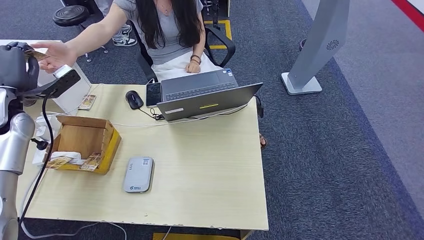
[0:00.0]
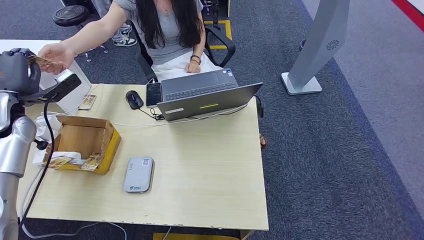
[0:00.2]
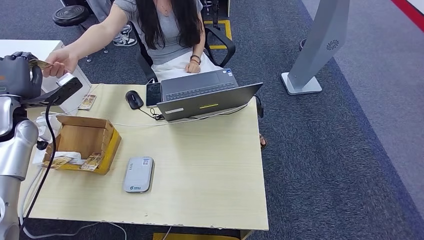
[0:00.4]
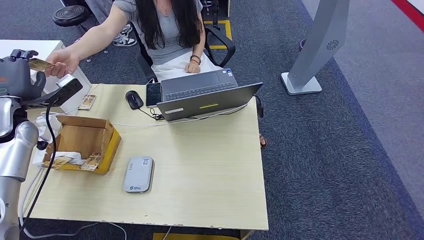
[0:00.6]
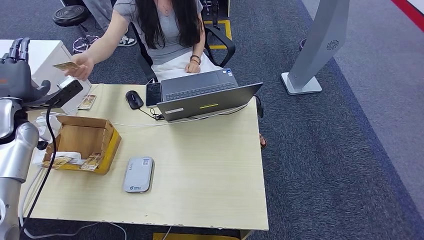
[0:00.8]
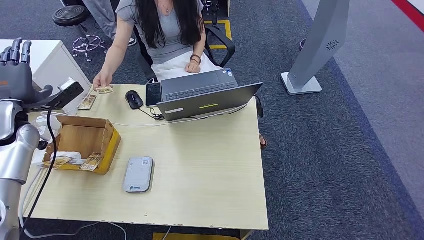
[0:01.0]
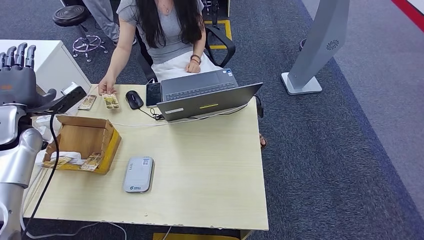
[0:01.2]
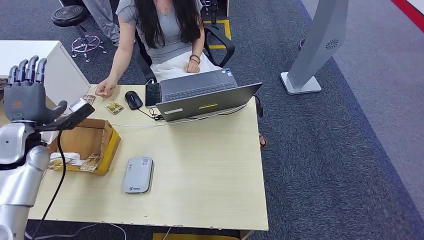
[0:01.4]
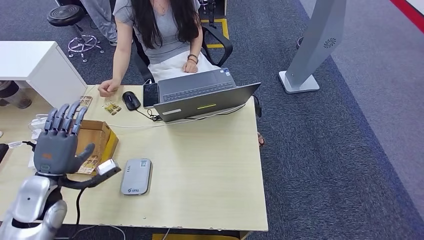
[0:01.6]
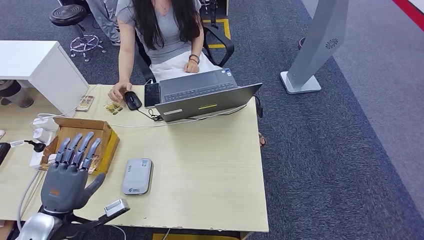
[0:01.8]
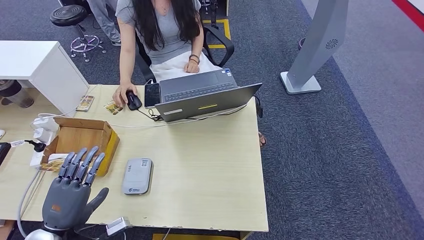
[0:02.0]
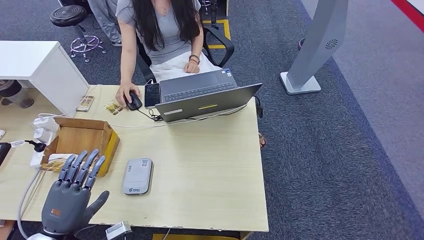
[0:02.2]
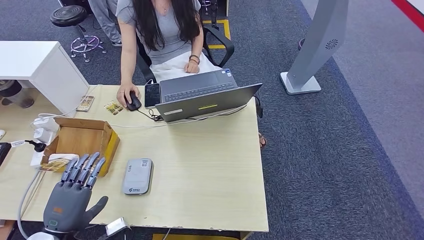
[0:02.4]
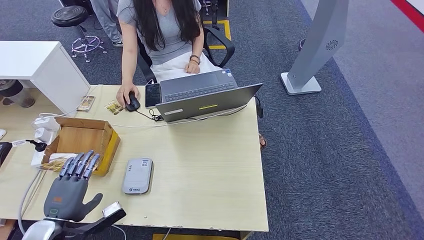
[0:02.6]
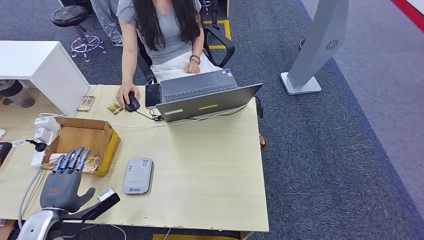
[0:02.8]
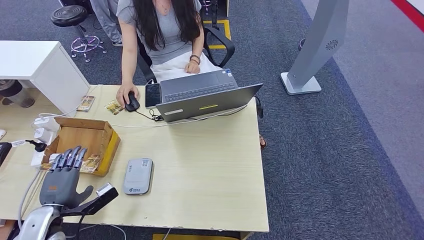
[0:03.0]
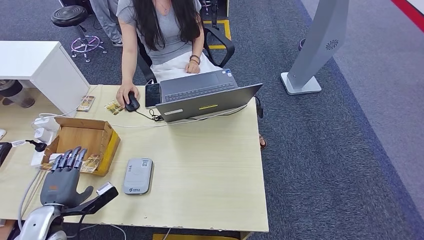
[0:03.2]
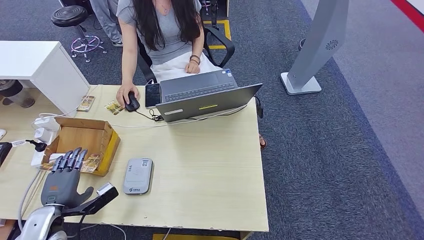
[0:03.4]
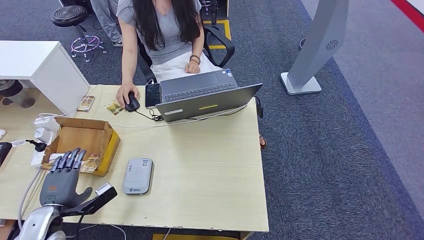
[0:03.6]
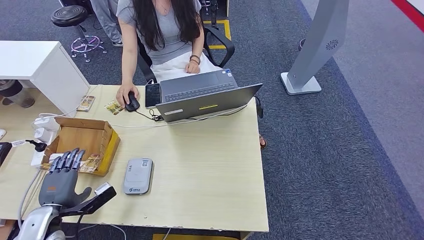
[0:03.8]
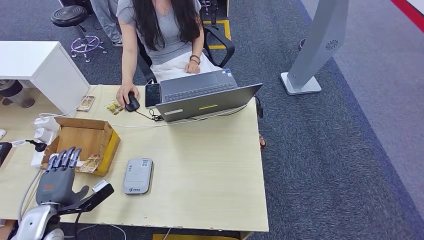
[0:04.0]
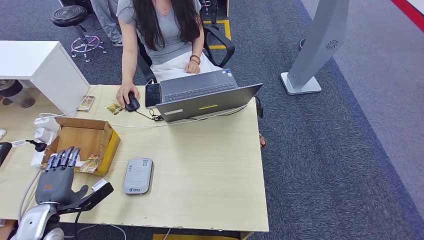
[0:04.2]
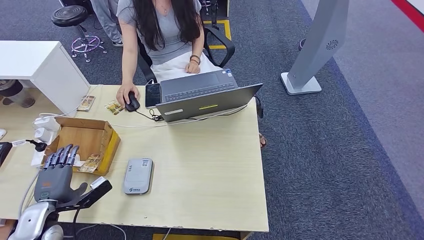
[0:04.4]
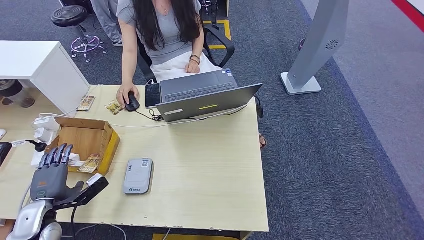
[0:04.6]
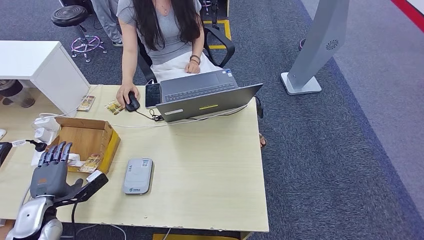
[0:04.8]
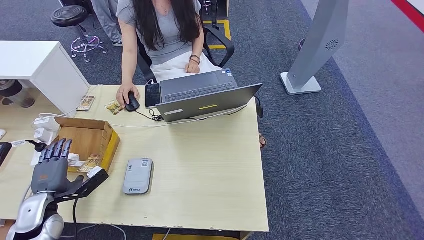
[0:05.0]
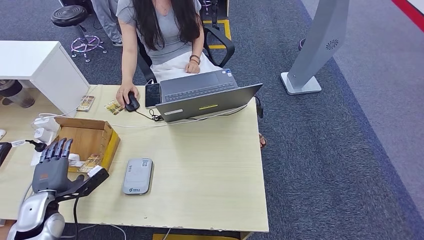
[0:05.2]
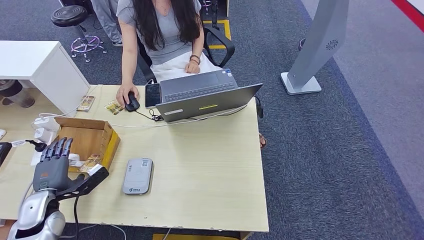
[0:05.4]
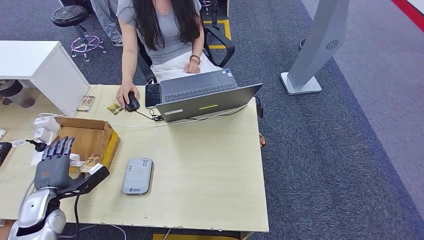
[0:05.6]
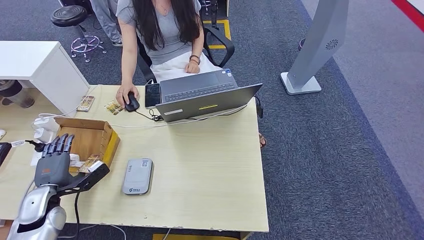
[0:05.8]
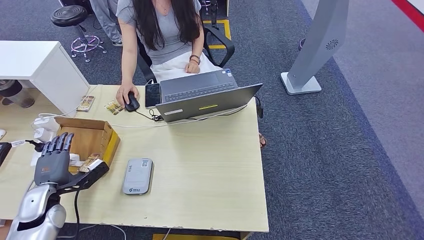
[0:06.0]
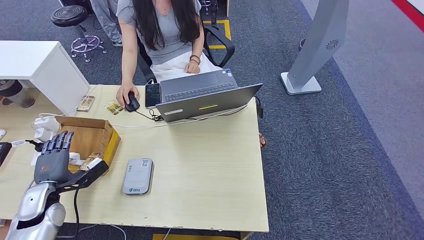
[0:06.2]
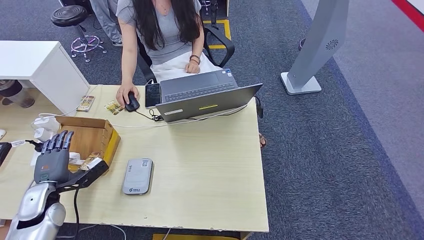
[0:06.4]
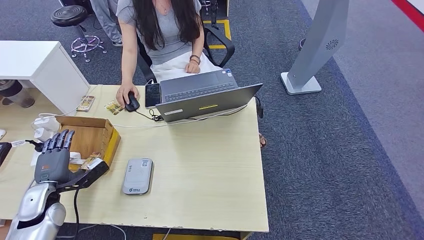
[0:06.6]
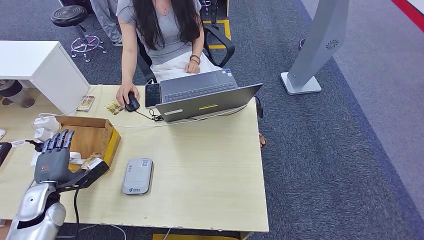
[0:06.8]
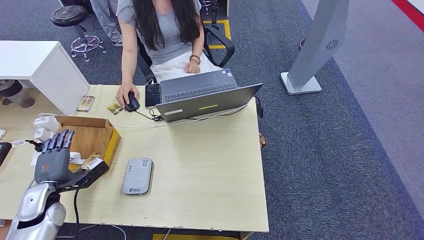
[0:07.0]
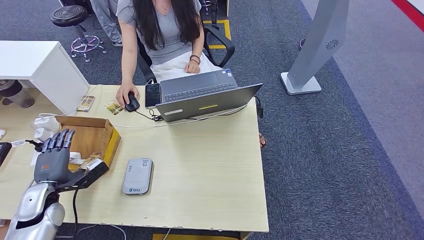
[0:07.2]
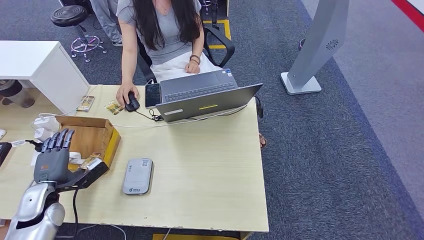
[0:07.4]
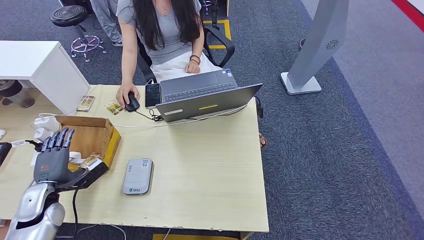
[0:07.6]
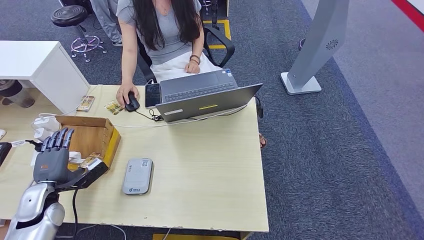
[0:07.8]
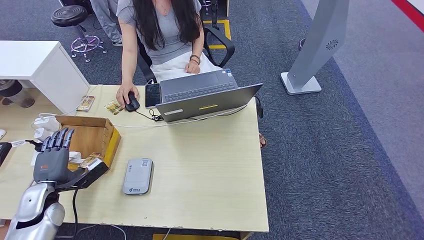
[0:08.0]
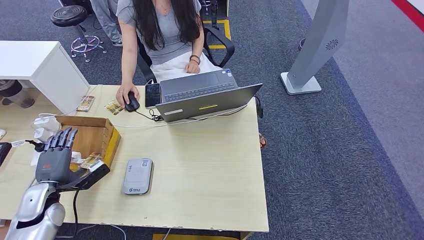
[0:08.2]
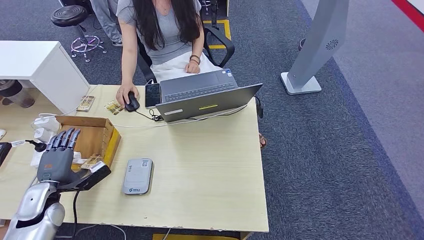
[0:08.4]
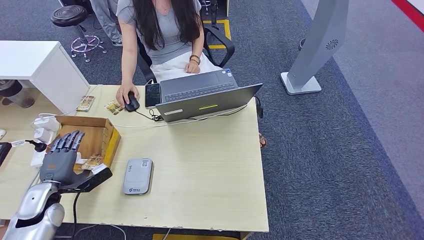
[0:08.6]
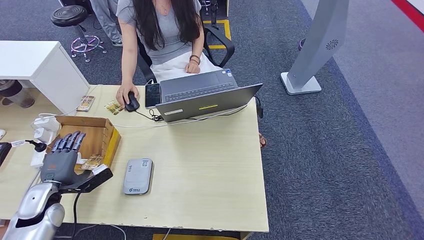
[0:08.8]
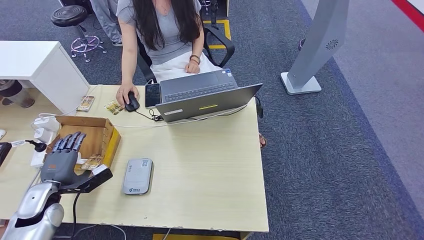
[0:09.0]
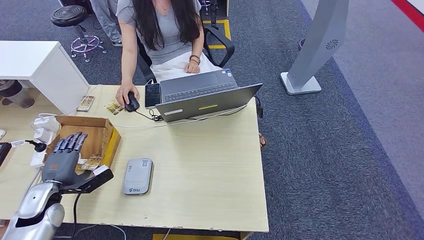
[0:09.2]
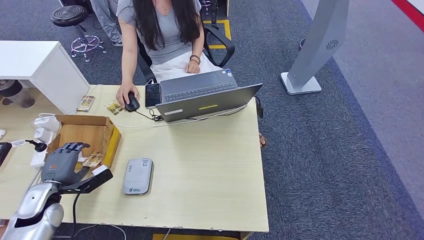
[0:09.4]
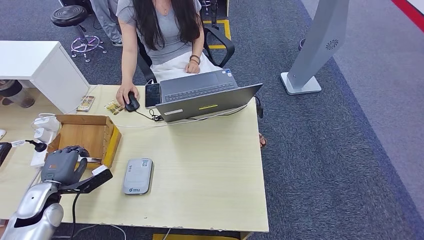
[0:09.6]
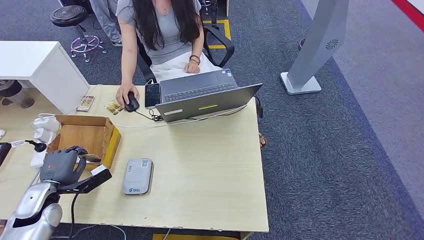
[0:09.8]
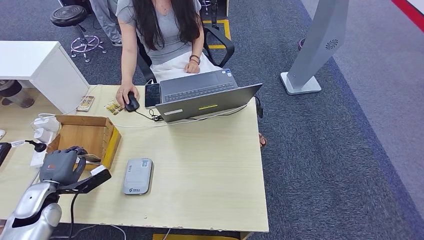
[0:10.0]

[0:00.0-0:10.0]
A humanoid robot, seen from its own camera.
0.0 to 1.4 s: The left hand heads downward, covering some 5 cm.
1.4 to 2.8 s: The left hand travels backward and downward by some 20 cm.
2.8 to 4.2 s: The hands stay close to where they were, moving slightly.
4.2 to 5.8 s: The left hand changes place by approximately 5 cm.
5.8 to 7.2 s: Both hands stay put.
7.2 to 8.6 s: The hands move only a little.
8.6 to 10.0 s: Both hands stay about where they are.

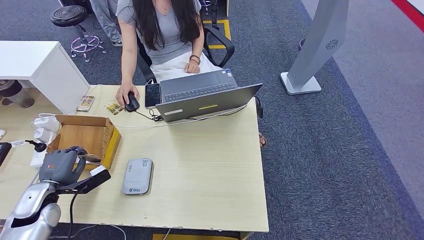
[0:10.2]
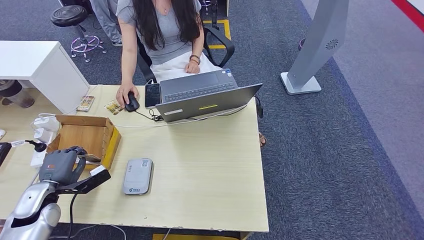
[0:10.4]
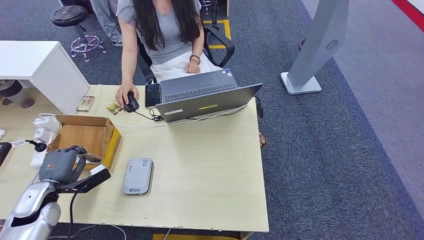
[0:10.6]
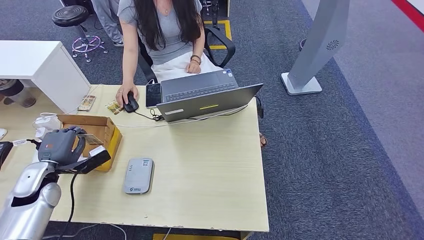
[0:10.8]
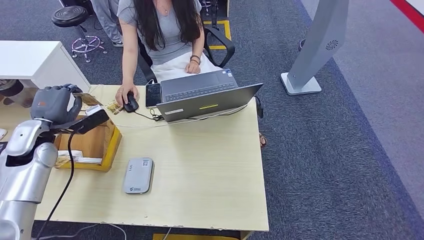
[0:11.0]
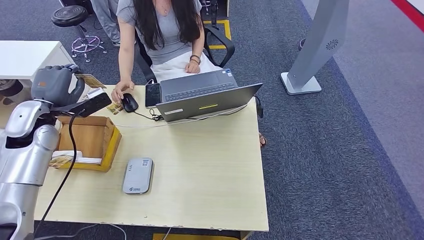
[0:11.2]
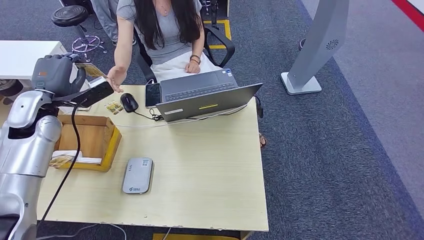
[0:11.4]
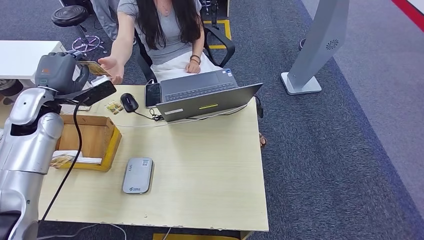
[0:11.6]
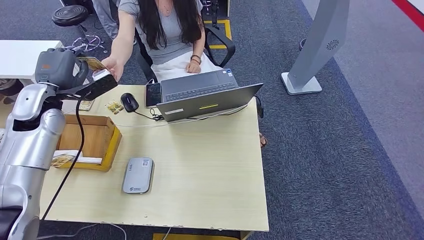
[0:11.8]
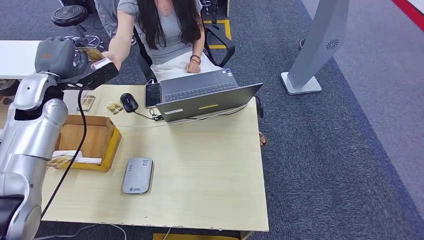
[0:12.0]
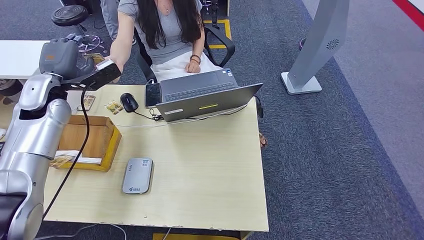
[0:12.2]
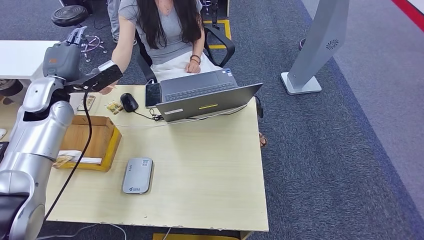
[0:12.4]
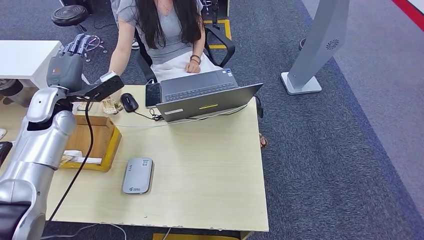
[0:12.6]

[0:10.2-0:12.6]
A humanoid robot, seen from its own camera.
Step, 11.4 to 12.6 s: Hand the room key to the person.
10.2 to 11.4 s: The left hand is displaced upward and forward by about 25 cm.
11.4 to 12.6 s: There are only small adjustments of the hands.

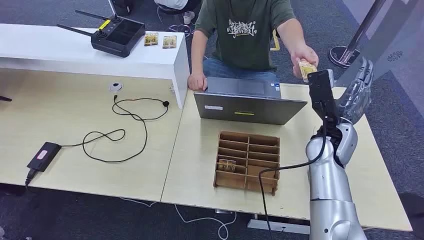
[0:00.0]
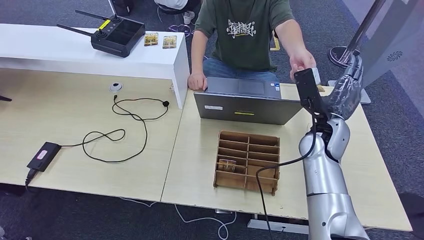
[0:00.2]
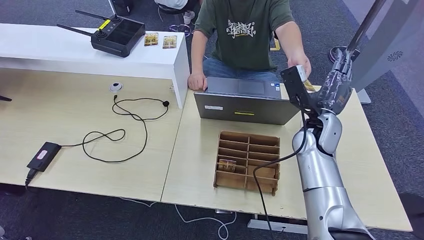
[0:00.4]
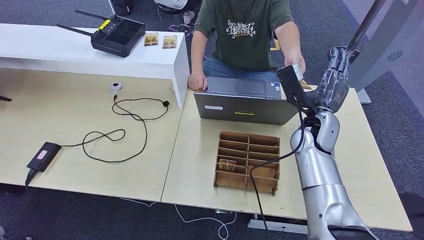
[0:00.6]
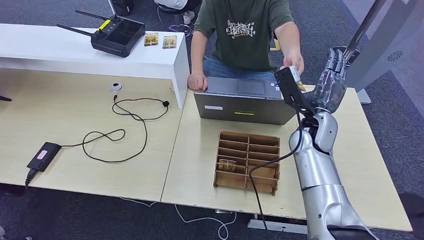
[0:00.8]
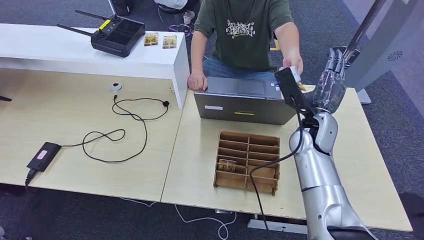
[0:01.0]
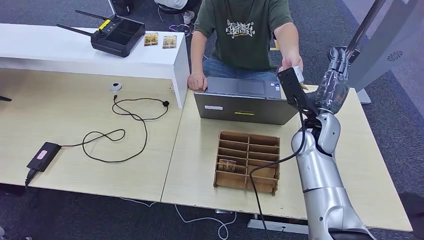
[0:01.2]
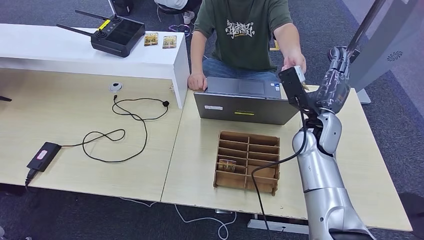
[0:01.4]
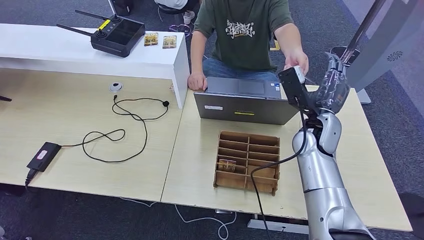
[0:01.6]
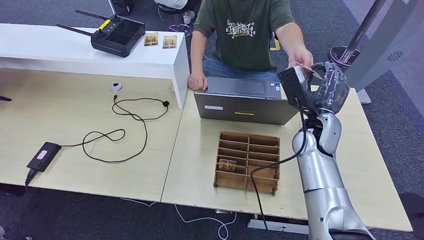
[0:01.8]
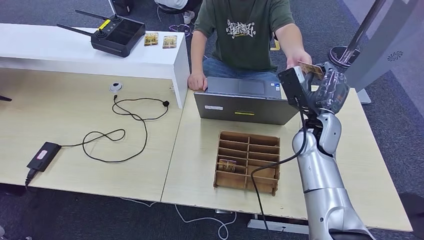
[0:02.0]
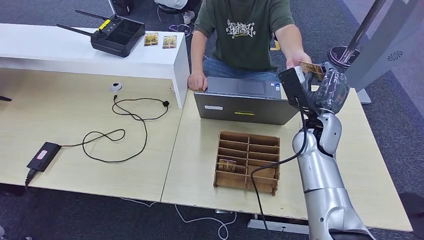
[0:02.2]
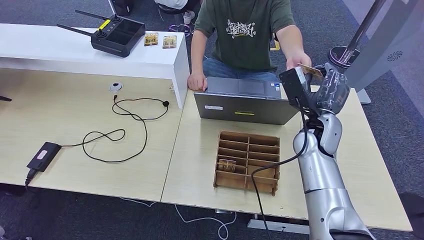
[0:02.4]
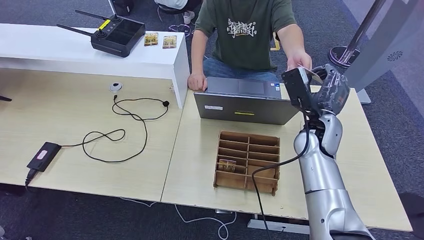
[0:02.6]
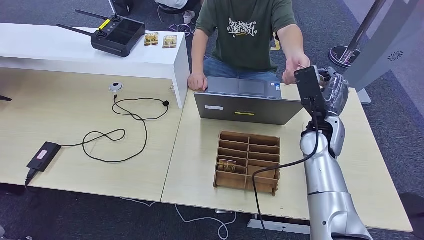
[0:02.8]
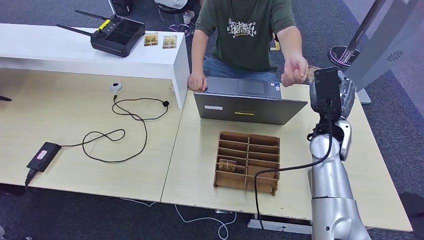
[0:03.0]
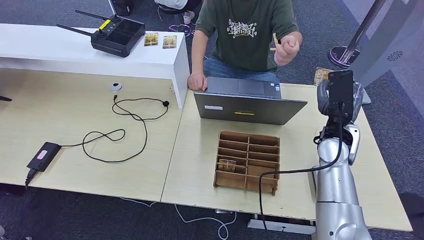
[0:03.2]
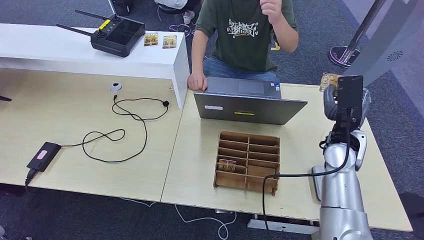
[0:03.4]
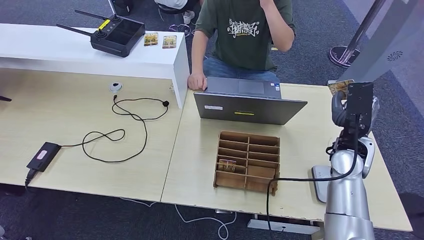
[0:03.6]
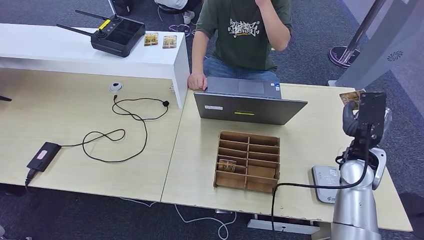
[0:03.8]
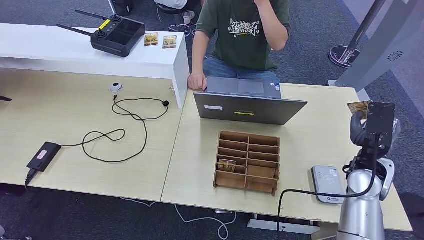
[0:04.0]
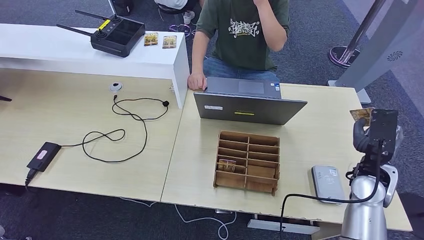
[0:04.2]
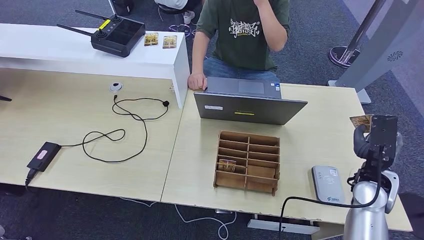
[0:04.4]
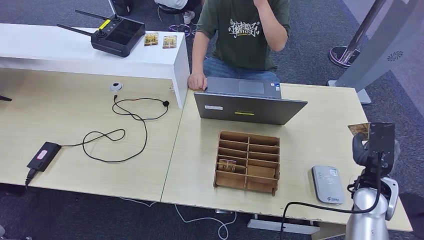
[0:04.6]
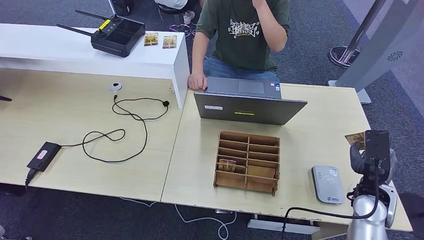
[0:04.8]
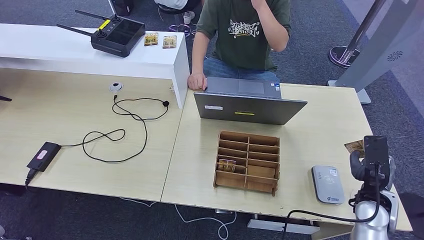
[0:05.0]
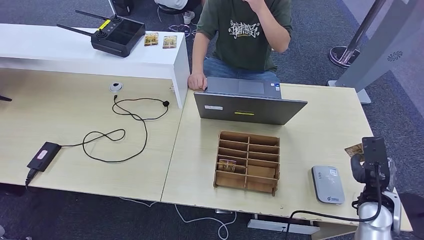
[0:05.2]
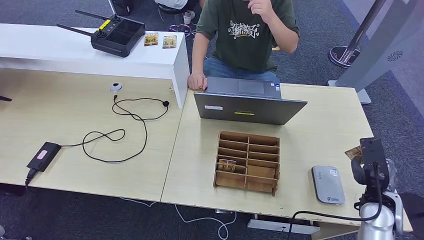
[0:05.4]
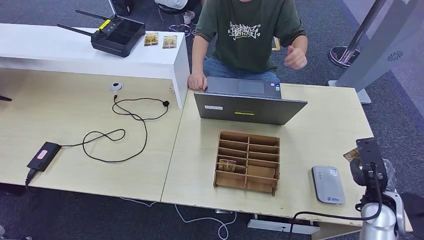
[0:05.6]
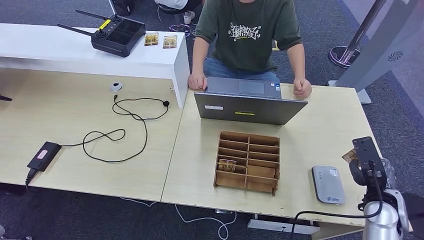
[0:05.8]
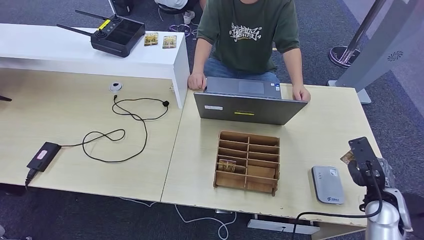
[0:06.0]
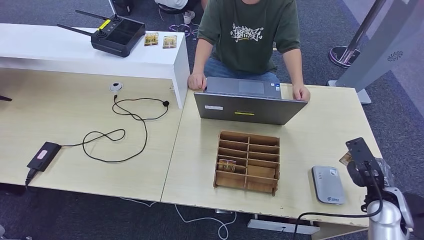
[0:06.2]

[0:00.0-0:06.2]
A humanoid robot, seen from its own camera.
Step, 0.0 to 4.0 s: Take the ID card from the person's hand.
3.2 to 4.6 s: The right hand shifts some 15 cm backward, to the right and downward.
4.6 to 6.2 s: The right hand goes about 5 cm to the right.
